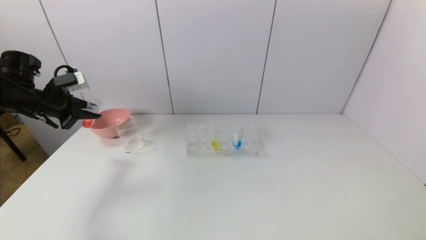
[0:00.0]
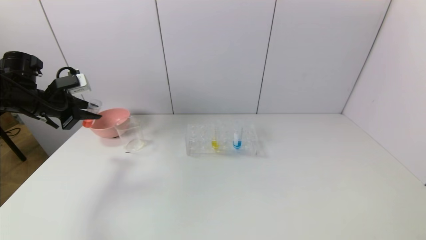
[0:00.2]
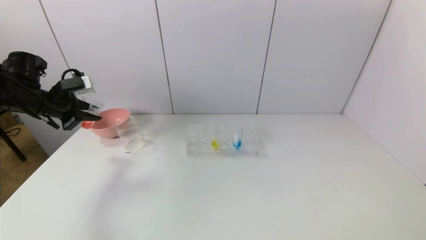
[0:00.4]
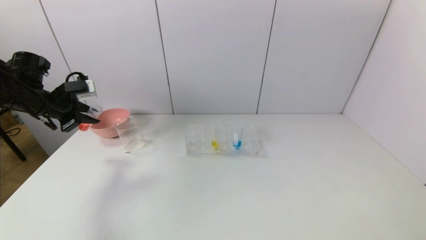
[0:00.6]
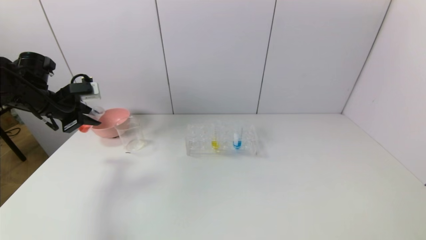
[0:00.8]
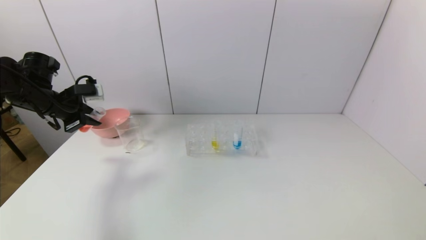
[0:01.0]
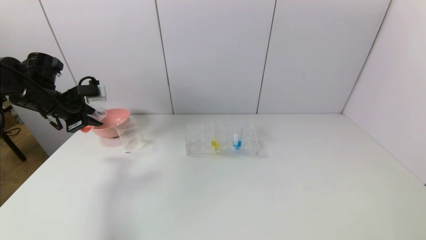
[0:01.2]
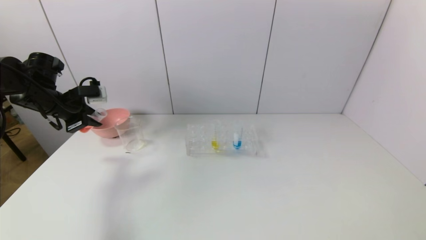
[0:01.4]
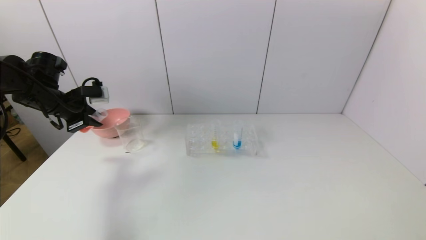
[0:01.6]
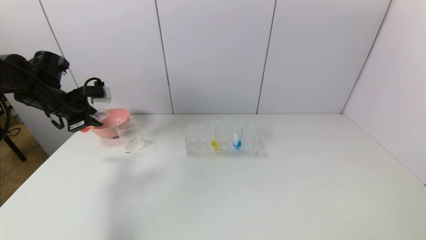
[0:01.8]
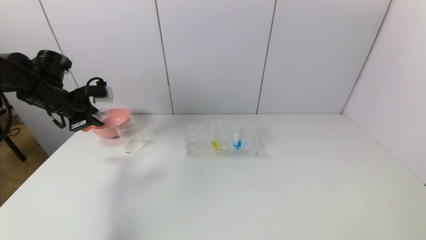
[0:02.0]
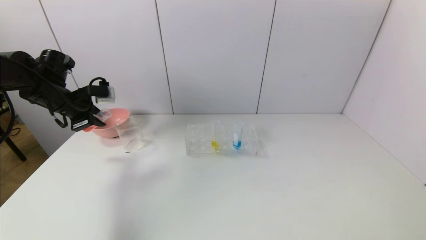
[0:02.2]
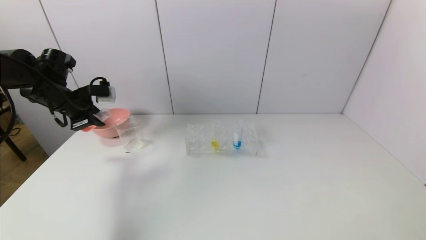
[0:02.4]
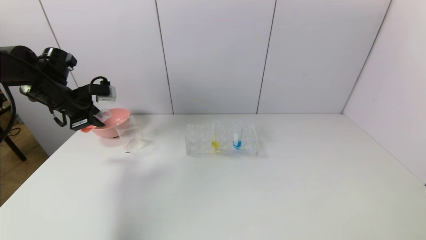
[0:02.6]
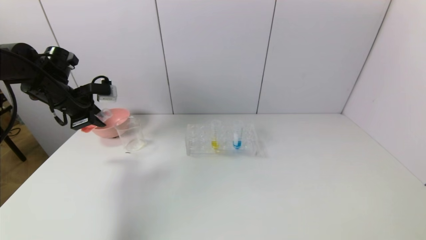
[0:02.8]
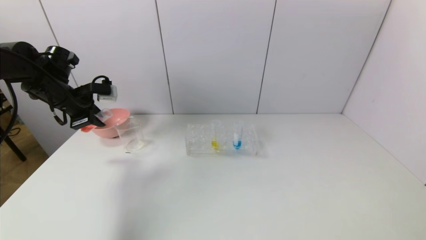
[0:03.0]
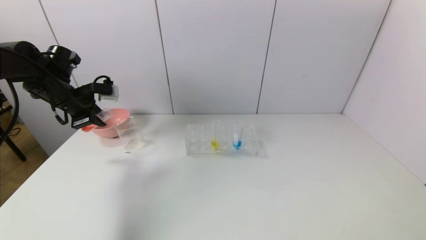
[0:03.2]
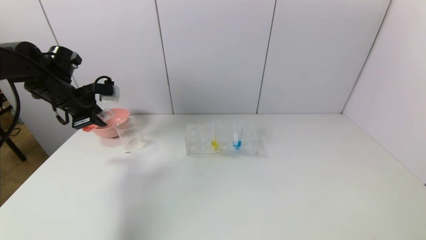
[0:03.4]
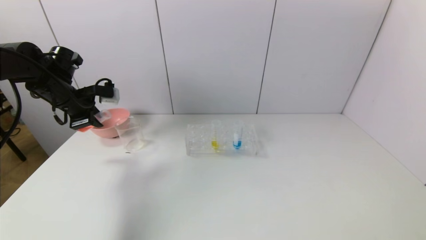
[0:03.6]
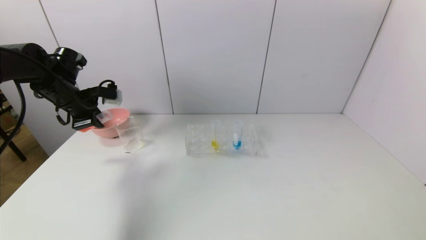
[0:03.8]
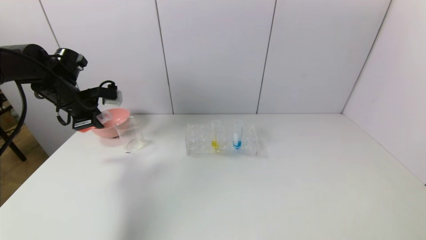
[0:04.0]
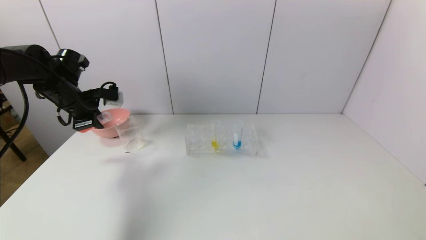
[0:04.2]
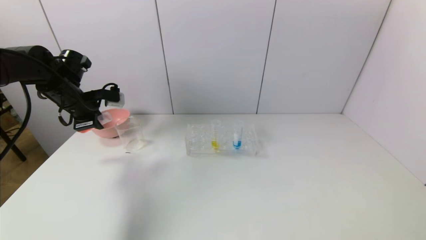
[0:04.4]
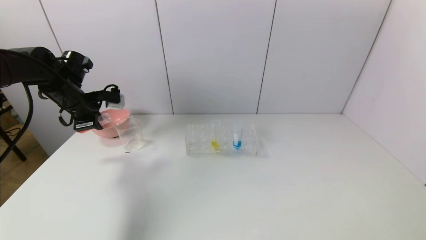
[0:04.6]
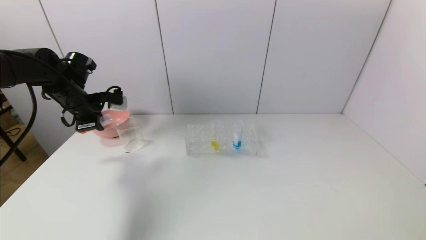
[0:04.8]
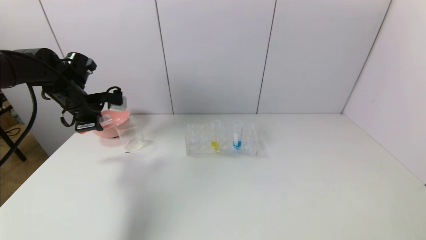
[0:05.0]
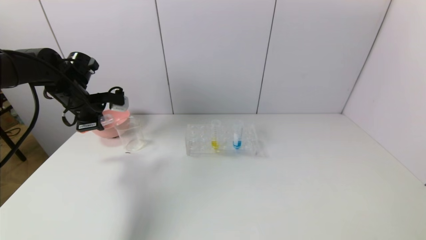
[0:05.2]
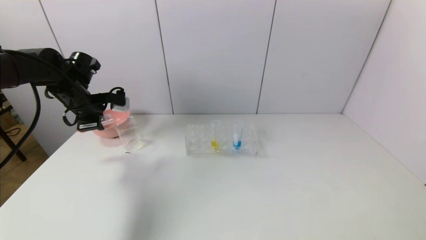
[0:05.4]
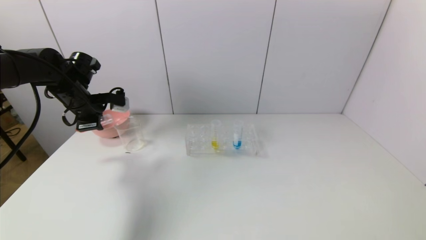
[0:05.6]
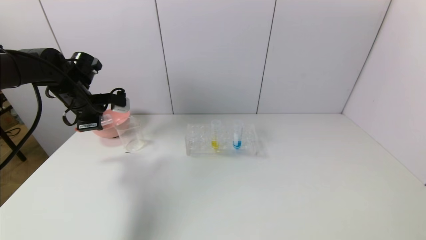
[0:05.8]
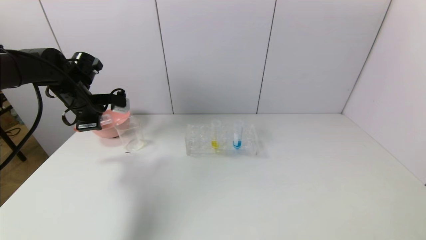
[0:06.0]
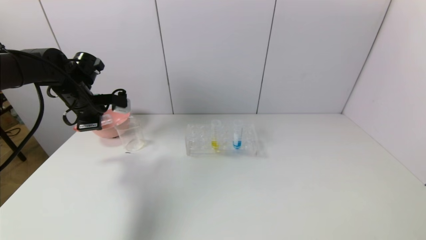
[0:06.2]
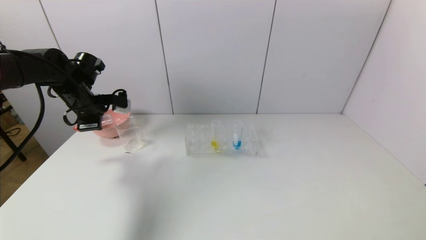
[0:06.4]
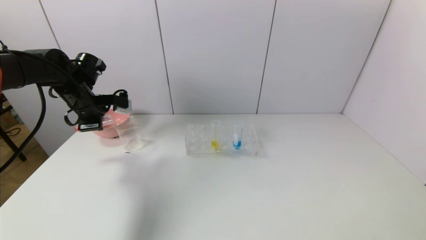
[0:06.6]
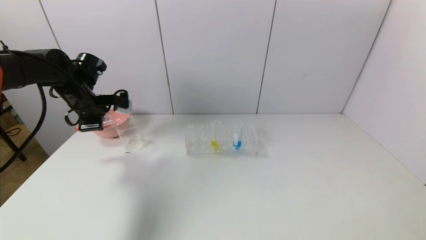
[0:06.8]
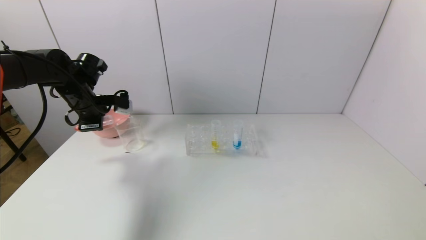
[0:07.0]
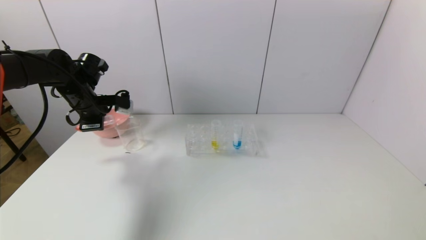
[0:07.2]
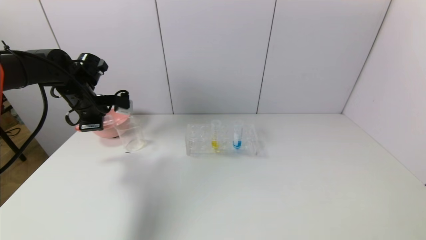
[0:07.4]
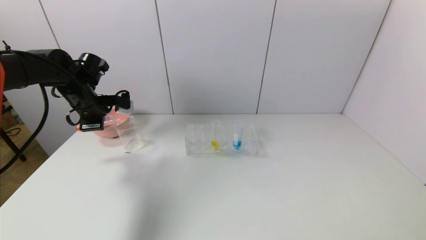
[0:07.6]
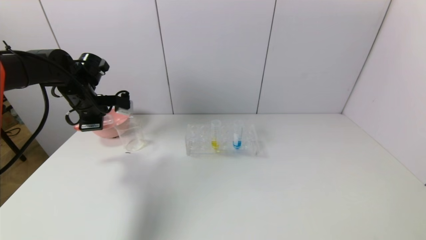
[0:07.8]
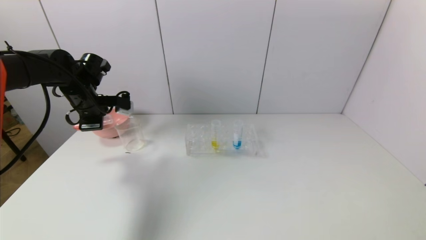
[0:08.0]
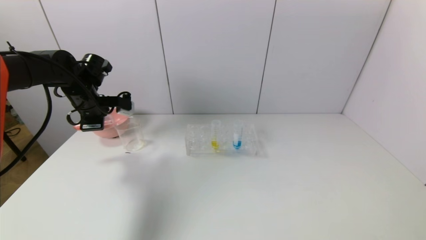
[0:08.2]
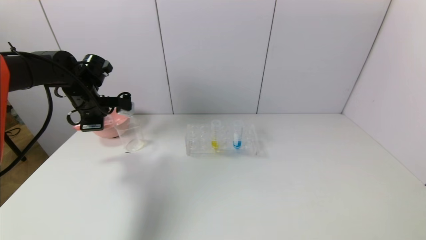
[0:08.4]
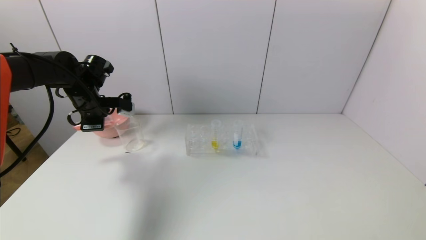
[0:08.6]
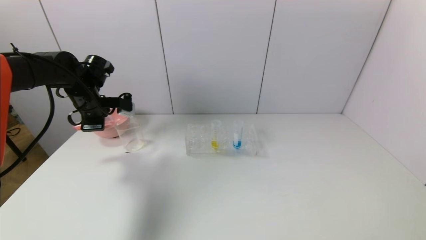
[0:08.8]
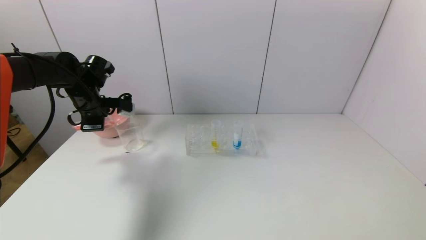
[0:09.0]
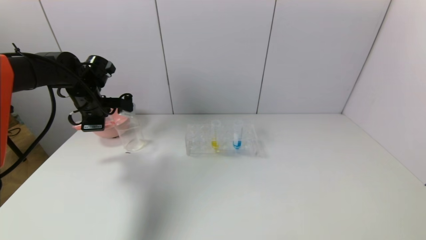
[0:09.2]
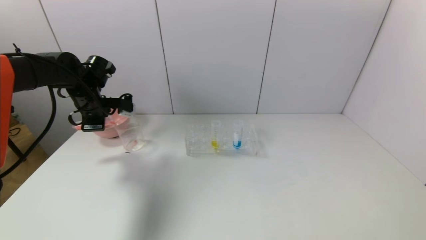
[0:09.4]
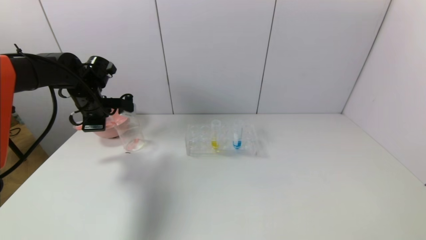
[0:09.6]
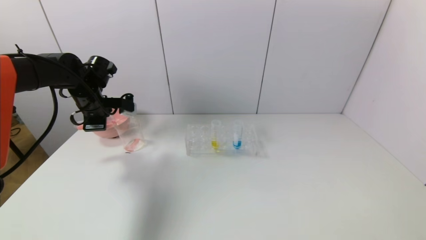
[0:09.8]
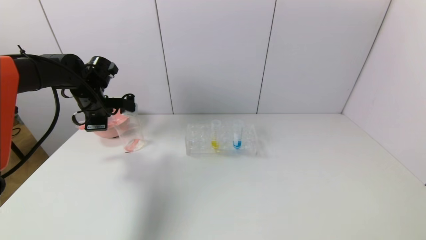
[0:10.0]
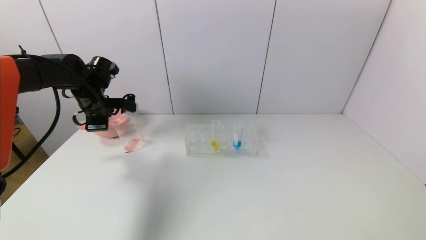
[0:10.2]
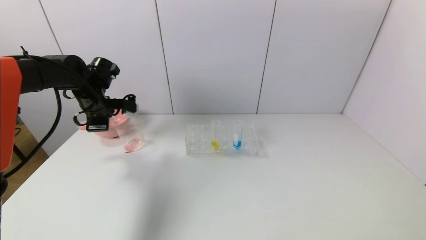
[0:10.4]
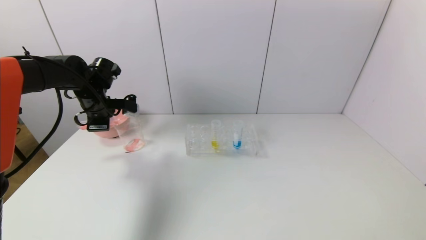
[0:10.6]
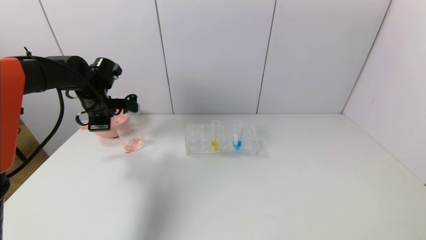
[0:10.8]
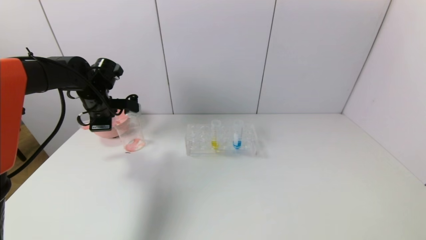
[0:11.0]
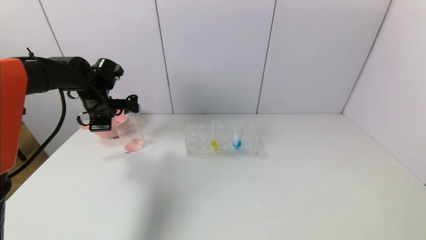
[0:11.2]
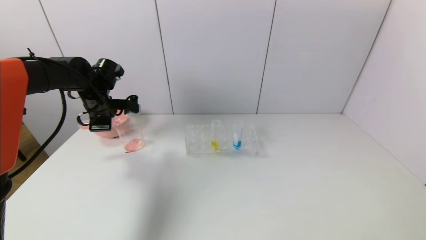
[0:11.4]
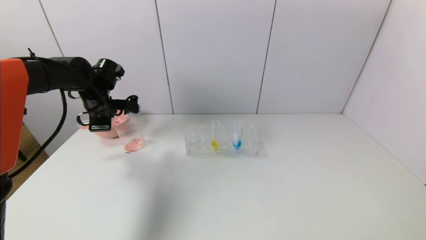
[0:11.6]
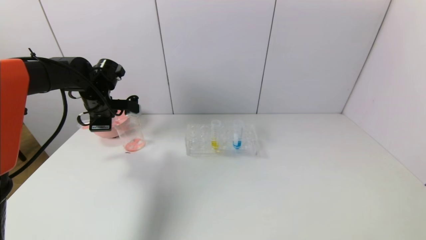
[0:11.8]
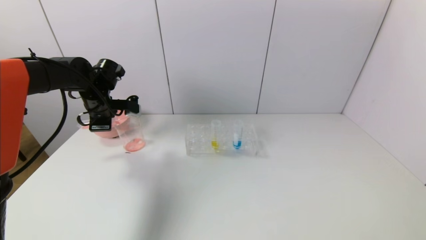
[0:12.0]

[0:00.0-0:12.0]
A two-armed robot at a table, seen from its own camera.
Task of the whole recording: pick up the test tube with yellow pigment and the test tube with red pigment by grippers and pour them into the beaker.
0:00.0 to 0:01.6: The grippers make only small movements.
0:01.6 to 0:04.4: The grippers make only small movements.
0:04.4 to 0:06.0: There are only small adjustments of the grippers.
0:06.0 to 0:07.6: Both grippers stay about where they are.
0:07.6 to 0:09.0: There are only small adjustments of the grippers.
0:09.0 to 0:10.4: The two grippers keep their place.
0:10.4 to 0:12.0: Both grippers stay put.

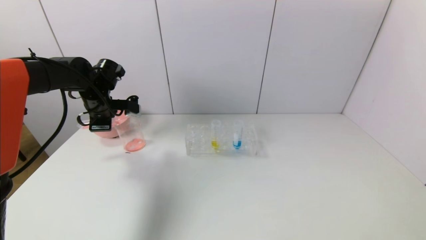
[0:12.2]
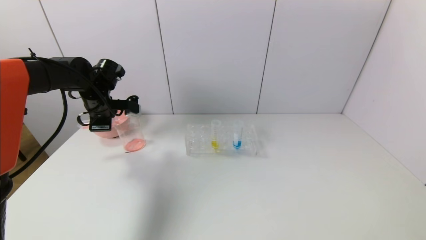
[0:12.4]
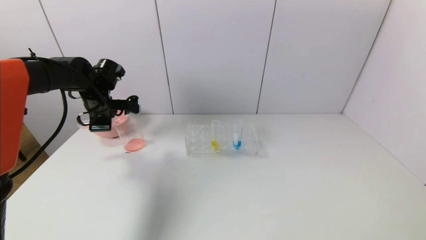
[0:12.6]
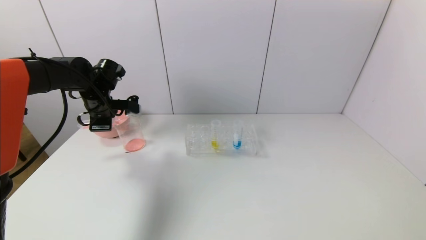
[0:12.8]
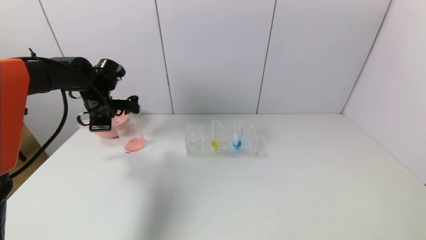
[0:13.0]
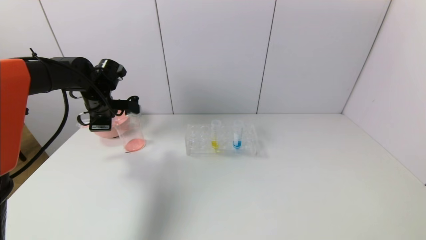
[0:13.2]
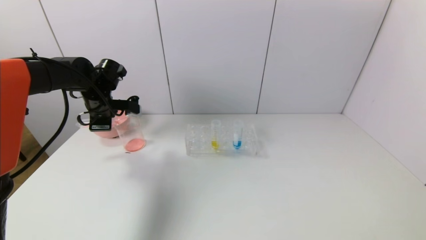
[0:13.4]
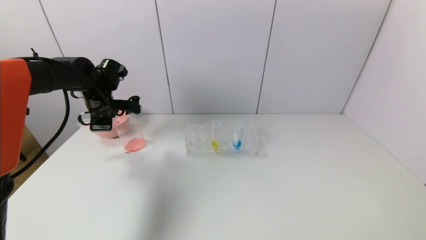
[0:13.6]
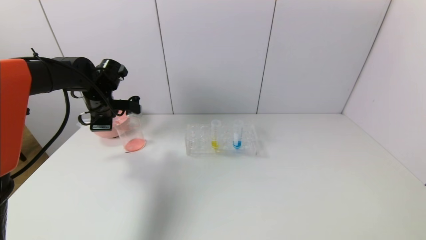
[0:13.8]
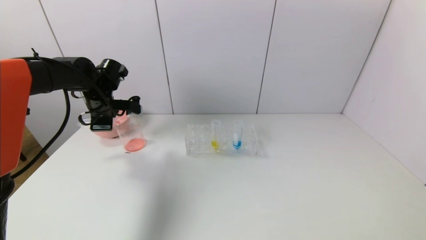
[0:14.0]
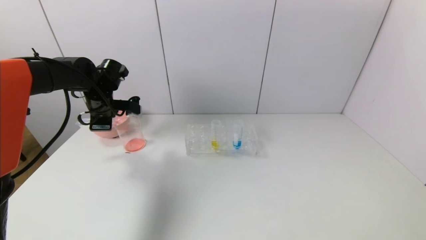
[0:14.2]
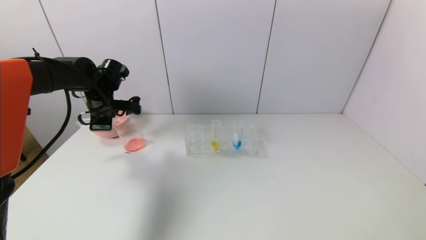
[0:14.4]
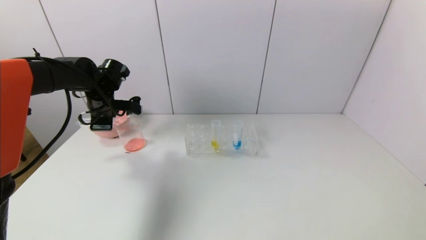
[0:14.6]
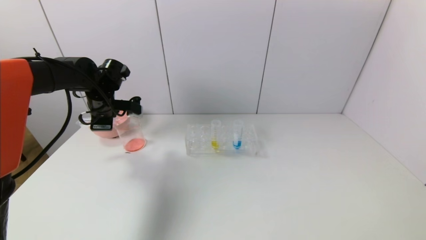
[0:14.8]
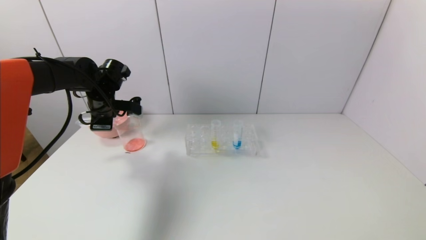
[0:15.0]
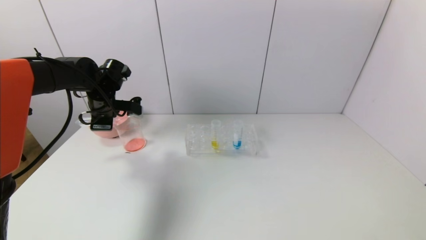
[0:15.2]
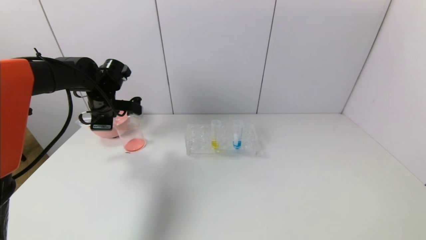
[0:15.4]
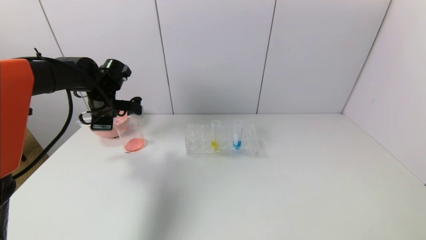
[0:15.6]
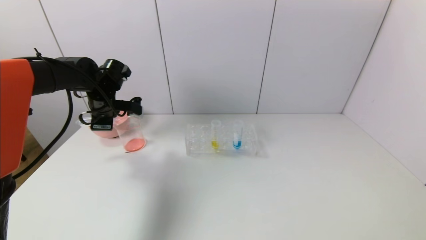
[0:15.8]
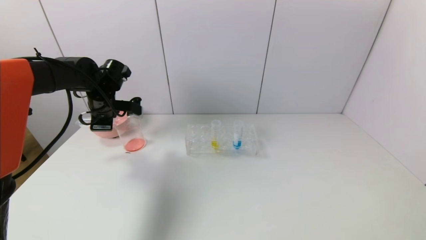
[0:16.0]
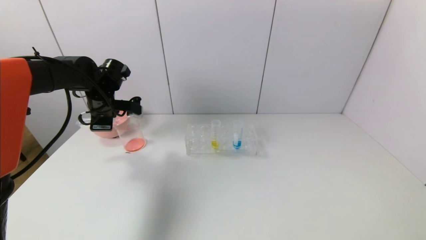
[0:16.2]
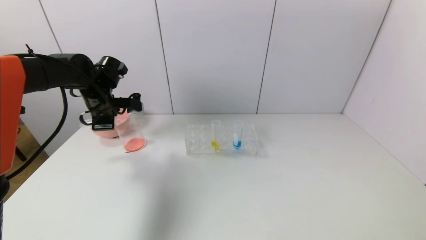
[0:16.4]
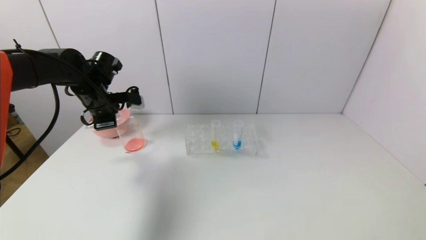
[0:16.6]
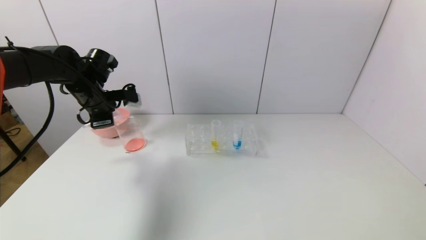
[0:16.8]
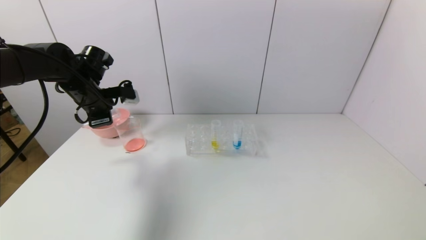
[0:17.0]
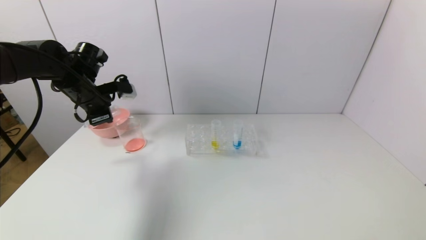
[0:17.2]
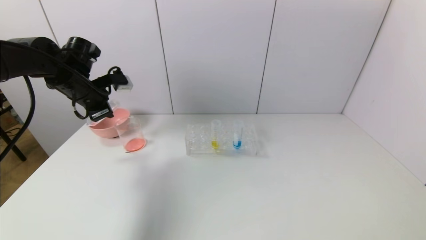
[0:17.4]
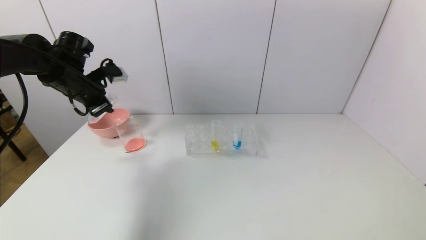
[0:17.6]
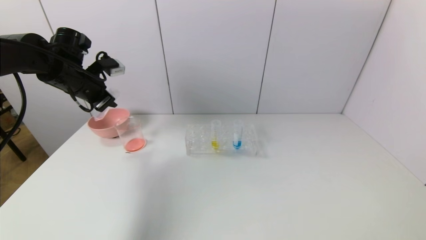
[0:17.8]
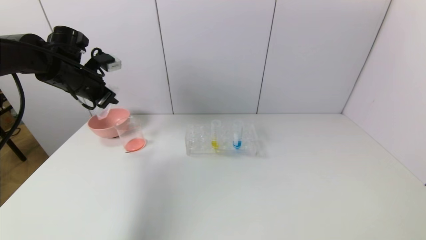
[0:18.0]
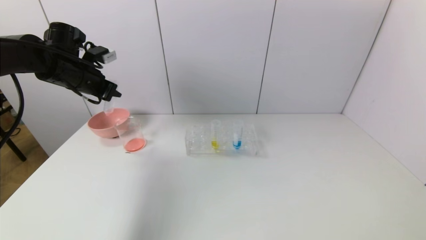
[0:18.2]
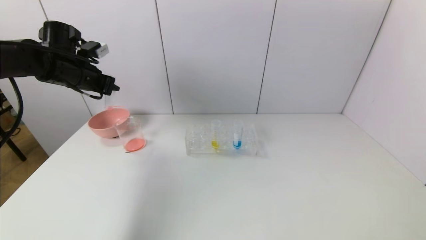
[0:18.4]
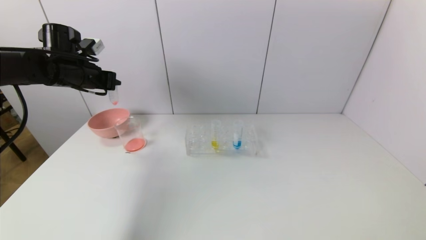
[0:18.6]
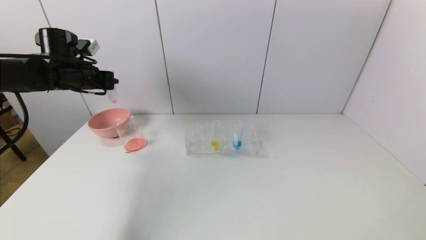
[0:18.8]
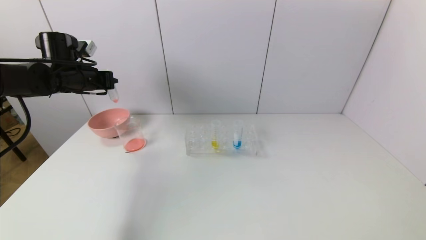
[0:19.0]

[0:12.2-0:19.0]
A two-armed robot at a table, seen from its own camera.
Task of the whole recording: pick up the test tube with yellow pigment and the test tube with red pigment by grippers and pour them into the beaker.
0:12.2 to 0:13.6: Neither gripper changes place.
0:13.6 to 0:16.2: Both grippers stay about where they are.
0:16.2 to 0:17.6: The left gripper moves upward, about 5 cm.
